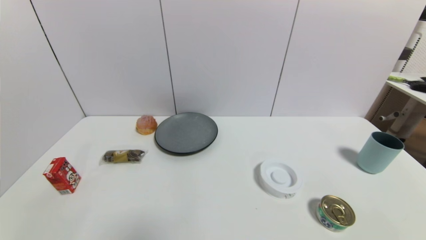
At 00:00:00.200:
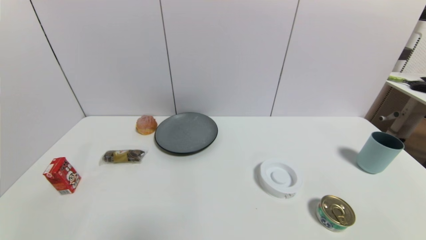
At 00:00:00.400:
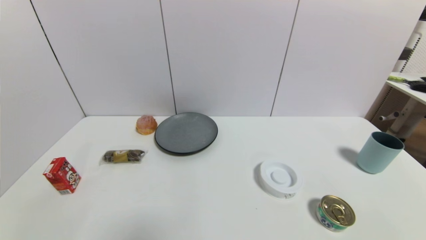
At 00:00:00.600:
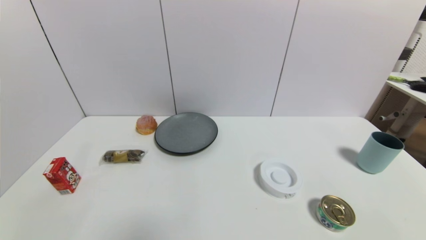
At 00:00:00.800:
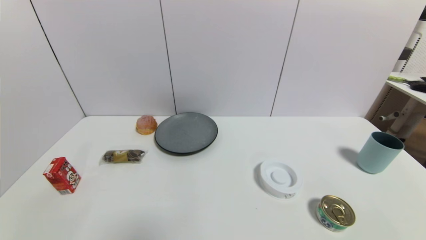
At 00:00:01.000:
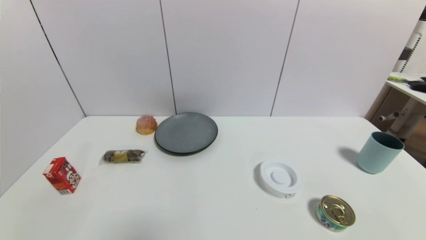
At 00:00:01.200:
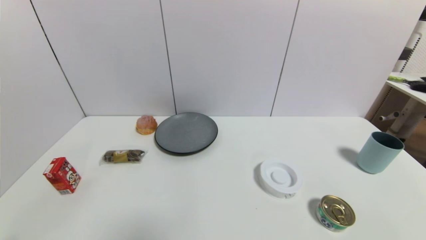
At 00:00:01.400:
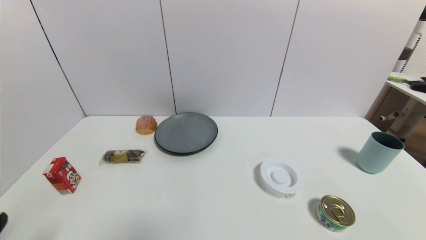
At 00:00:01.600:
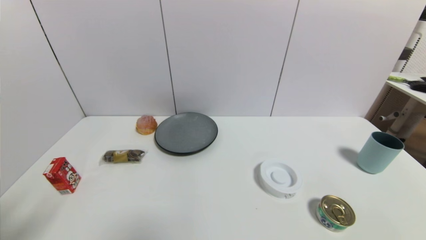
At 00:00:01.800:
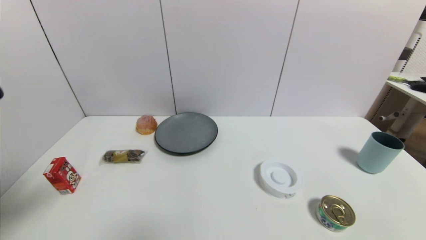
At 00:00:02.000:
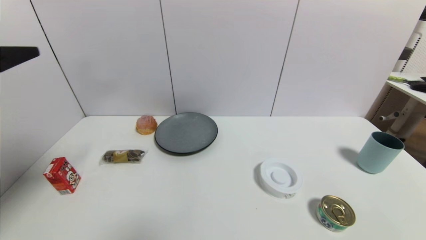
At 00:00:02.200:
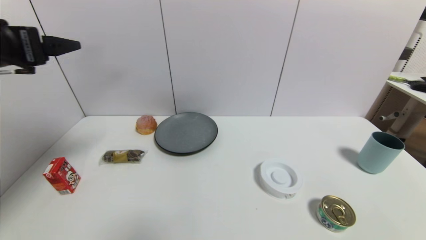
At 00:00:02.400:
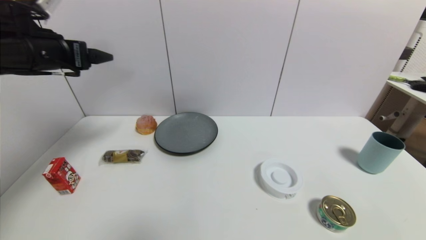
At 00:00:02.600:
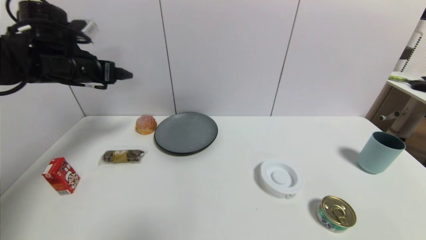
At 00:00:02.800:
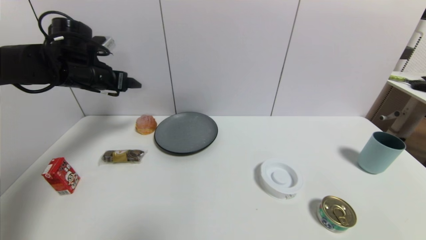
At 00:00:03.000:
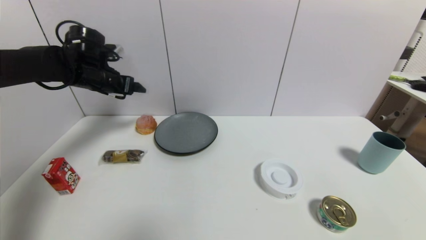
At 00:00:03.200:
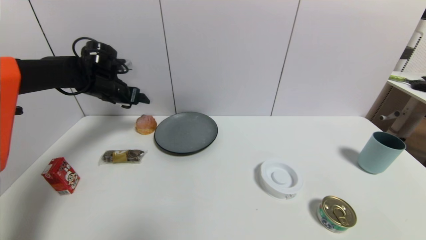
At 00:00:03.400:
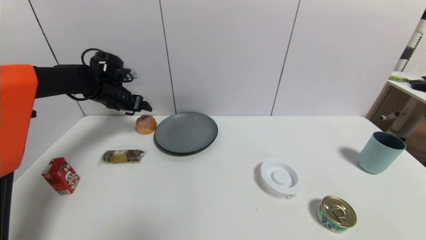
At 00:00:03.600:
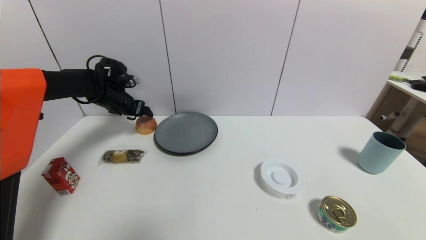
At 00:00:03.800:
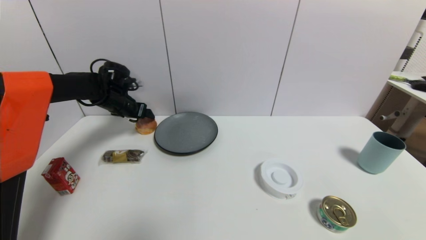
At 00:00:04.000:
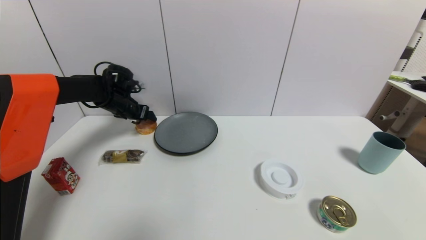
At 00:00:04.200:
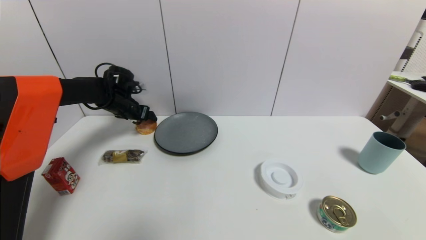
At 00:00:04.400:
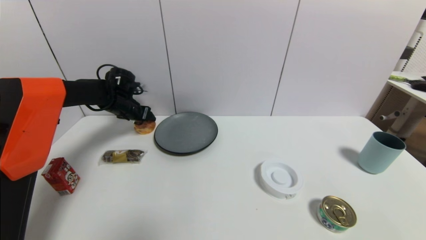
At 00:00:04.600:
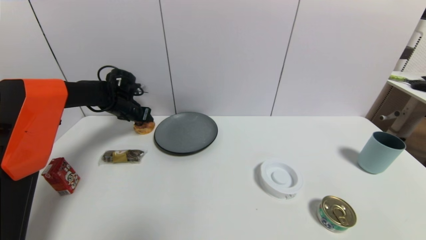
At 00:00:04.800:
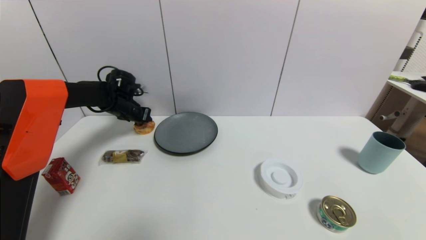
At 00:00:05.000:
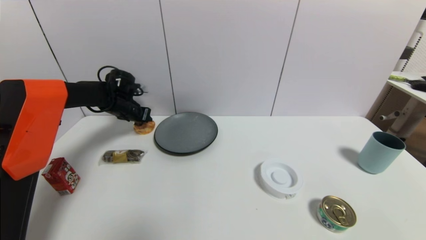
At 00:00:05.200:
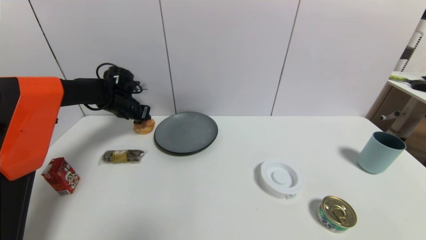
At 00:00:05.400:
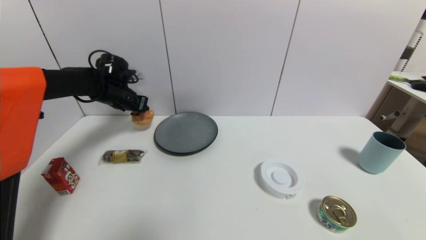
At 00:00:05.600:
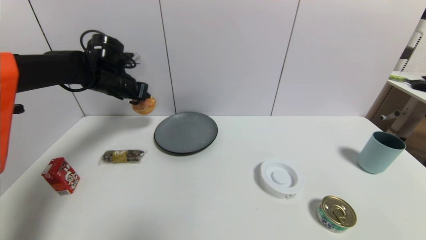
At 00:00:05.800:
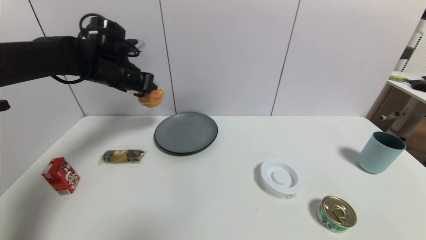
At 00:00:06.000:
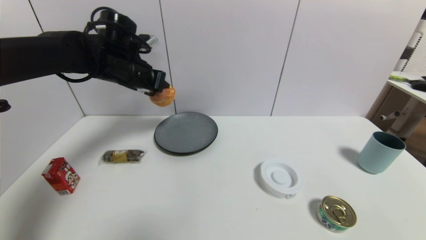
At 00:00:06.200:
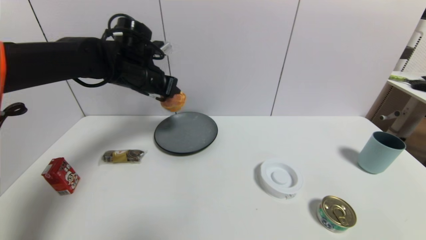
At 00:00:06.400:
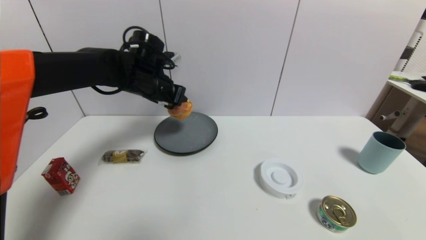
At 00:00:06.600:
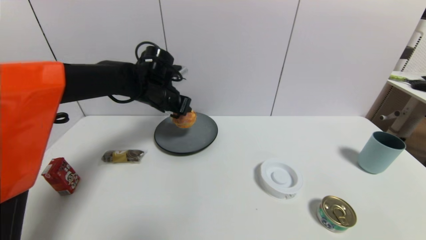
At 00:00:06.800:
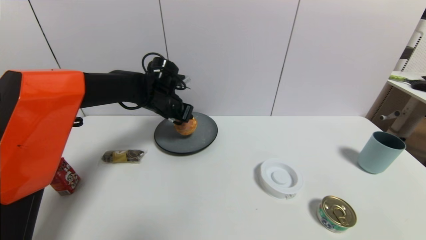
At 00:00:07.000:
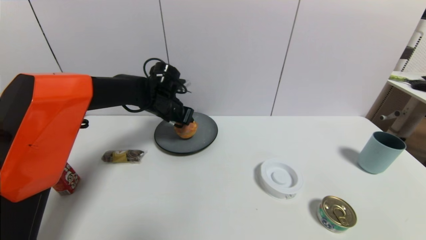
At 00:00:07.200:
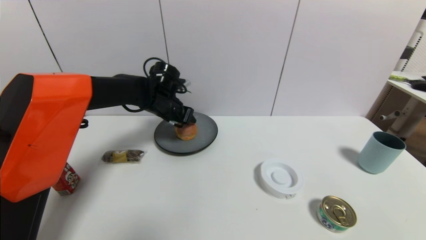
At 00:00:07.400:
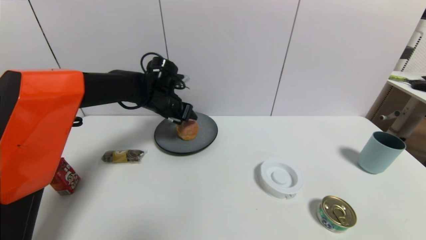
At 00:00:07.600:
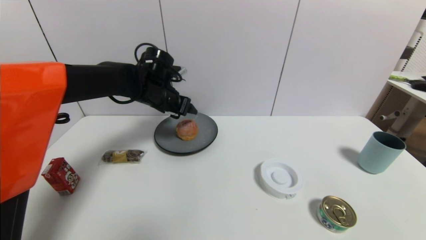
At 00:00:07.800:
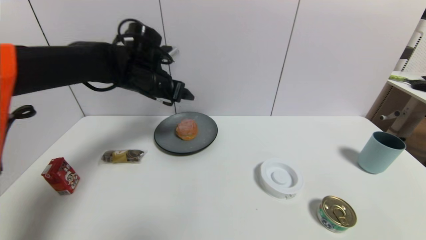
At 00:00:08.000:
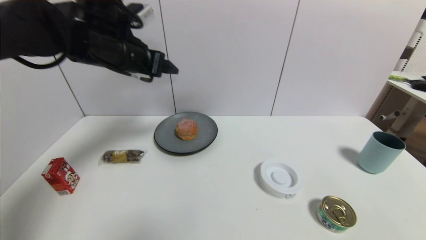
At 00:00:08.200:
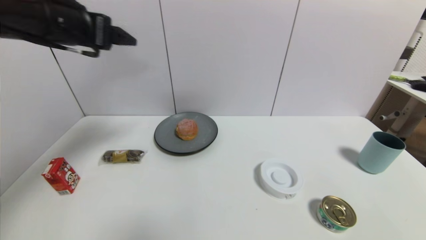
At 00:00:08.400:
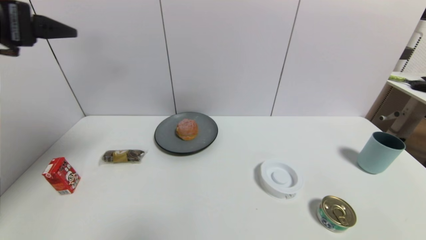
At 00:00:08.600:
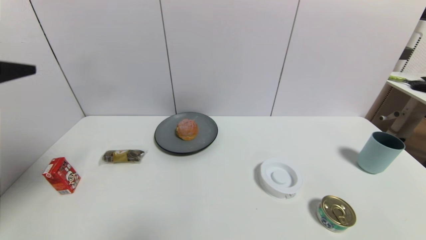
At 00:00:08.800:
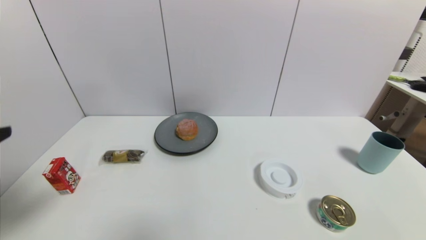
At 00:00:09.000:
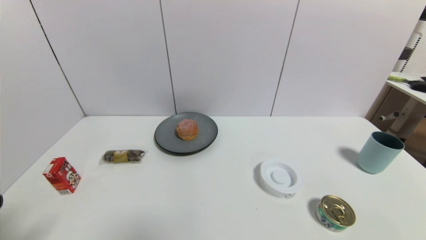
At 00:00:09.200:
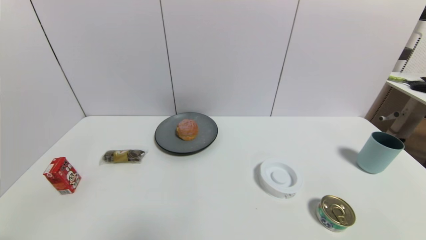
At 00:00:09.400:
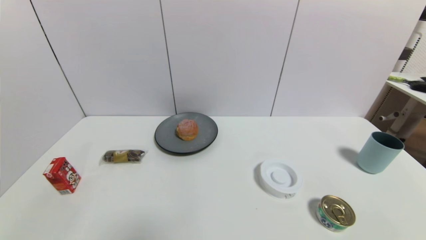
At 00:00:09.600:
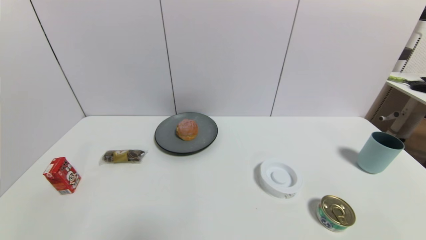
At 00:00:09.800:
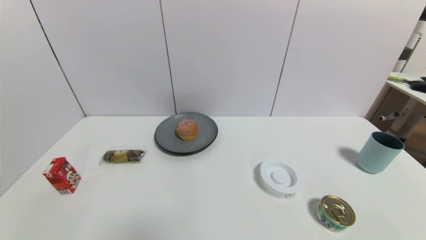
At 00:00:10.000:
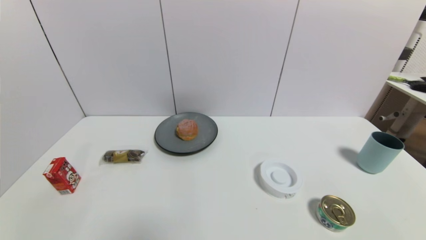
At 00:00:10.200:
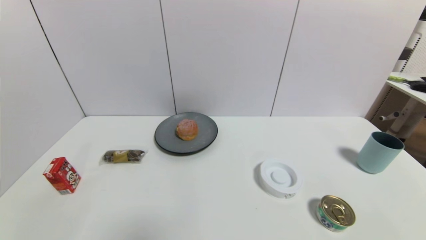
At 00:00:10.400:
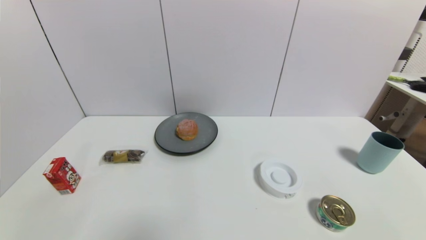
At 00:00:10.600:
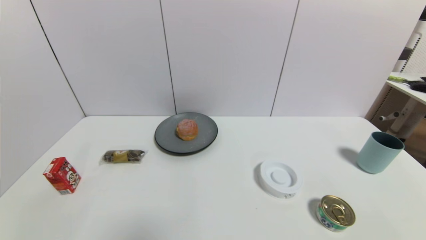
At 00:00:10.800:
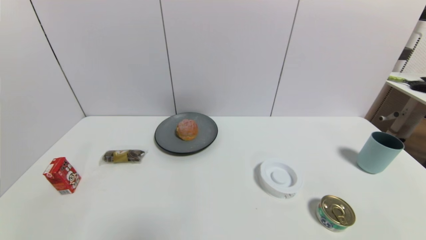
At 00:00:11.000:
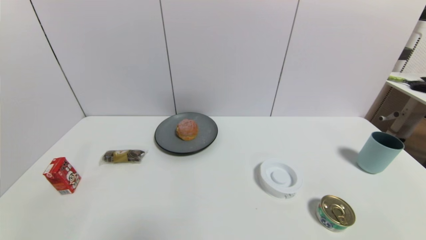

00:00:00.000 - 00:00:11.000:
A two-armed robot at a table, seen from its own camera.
Task of the whole recording: use a gripper to pick the target object and place on the gray plate.
Step, 00:00:00.000 - 00:00:04.800: Grasp the round bread with the left gripper.
Step, 00:00:05.000 - 00:00:07.400: Place the round bread on the gray plate with the left gripper.
00:00:00.000 - 00:00:01.600: The left gripper travels upward by about 20 cm.
00:00:01.600 - 00:00:03.200: The left gripper travels forward by roughly 40 cm.
00:00:03.200 - 00:00:04.800: The left gripper goes some 5 cm downward, and closes its fingers.
00:00:04.800 - 00:00:06.200: The left gripper goes roughly 20 cm upward, to the right and backward.
00:00:06.200 - 00:00:07.800: The left gripper travels downward and back again, roughly 10 cm each way, and opens up.
00:00:07.800 - 00:00:09.400: The left gripper is displaced backward and downward by some 40 cm.
